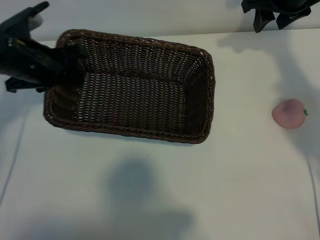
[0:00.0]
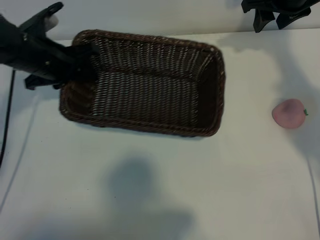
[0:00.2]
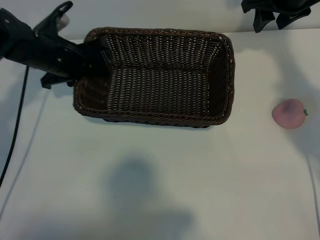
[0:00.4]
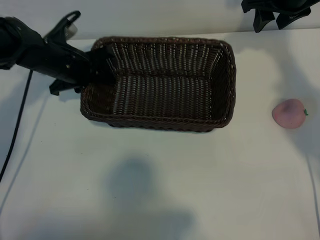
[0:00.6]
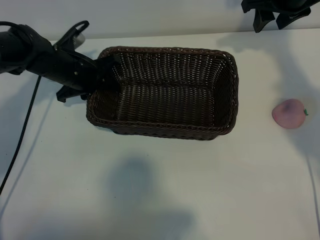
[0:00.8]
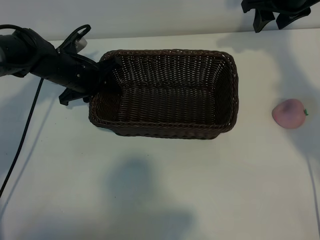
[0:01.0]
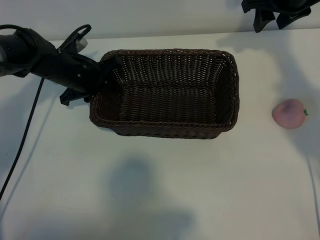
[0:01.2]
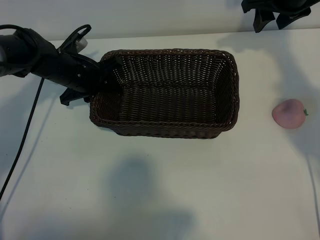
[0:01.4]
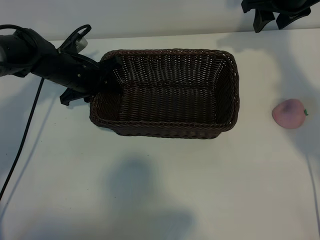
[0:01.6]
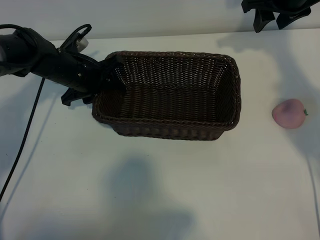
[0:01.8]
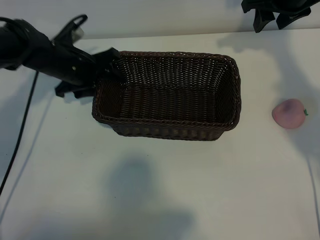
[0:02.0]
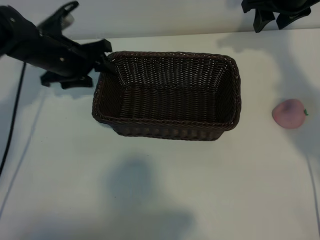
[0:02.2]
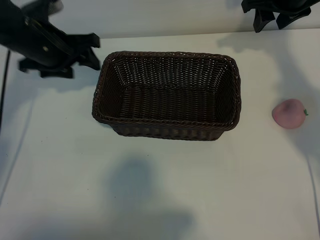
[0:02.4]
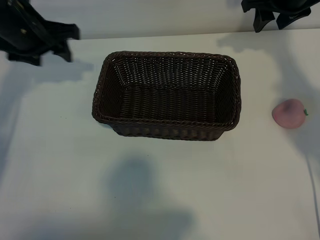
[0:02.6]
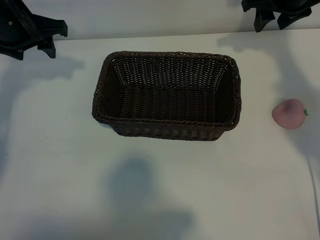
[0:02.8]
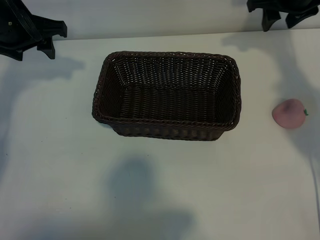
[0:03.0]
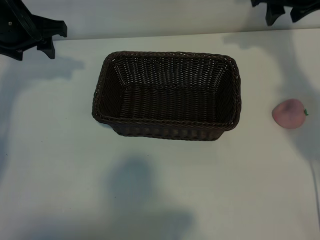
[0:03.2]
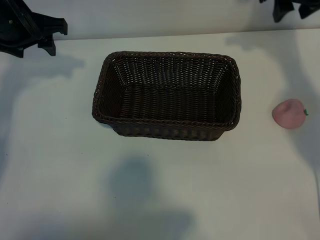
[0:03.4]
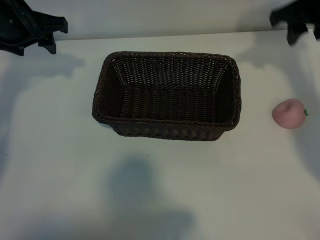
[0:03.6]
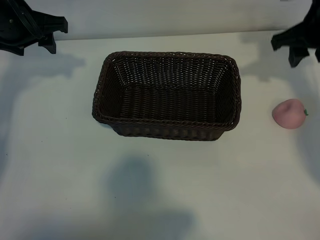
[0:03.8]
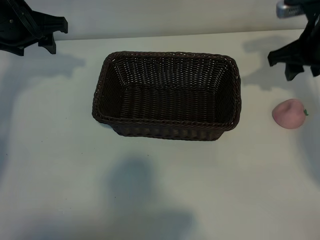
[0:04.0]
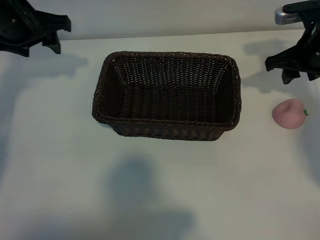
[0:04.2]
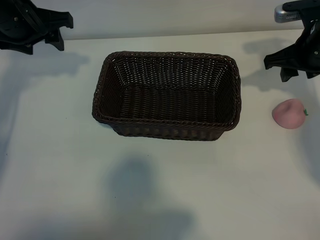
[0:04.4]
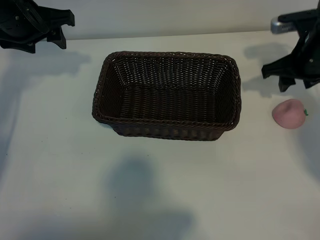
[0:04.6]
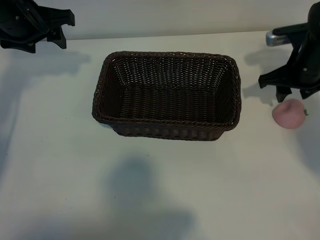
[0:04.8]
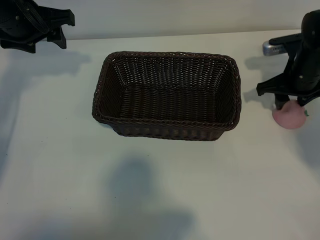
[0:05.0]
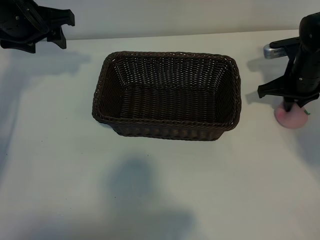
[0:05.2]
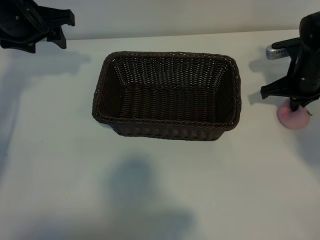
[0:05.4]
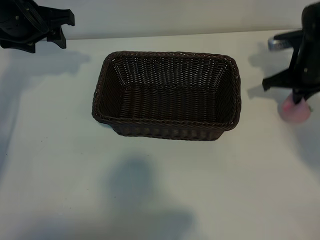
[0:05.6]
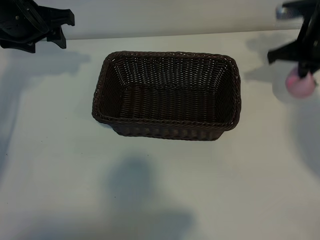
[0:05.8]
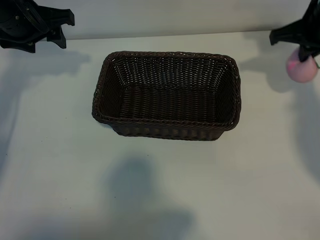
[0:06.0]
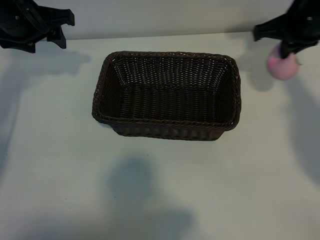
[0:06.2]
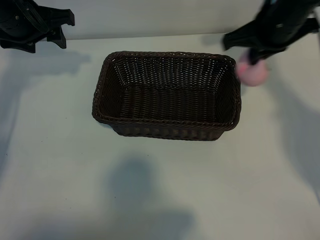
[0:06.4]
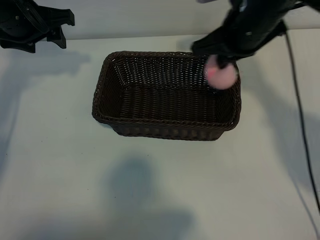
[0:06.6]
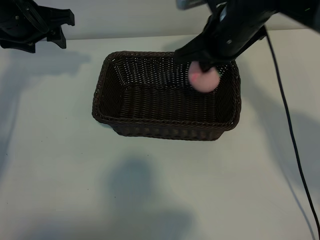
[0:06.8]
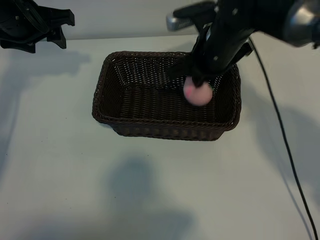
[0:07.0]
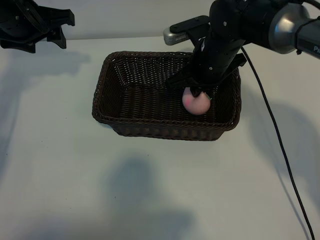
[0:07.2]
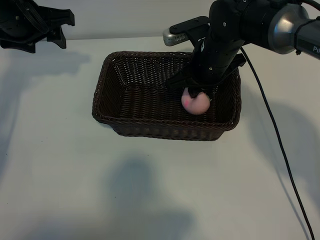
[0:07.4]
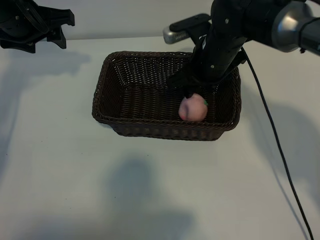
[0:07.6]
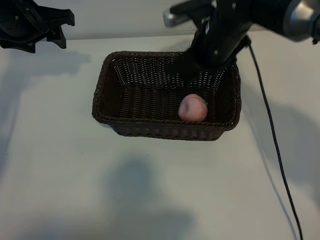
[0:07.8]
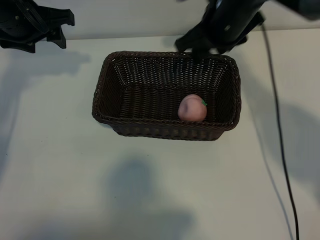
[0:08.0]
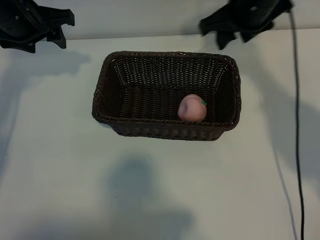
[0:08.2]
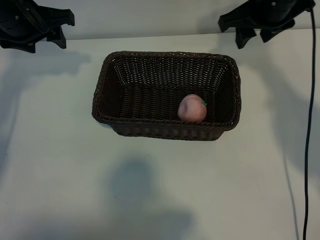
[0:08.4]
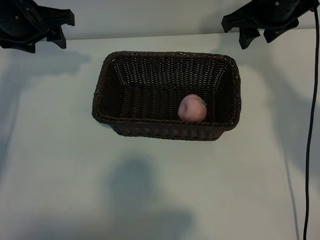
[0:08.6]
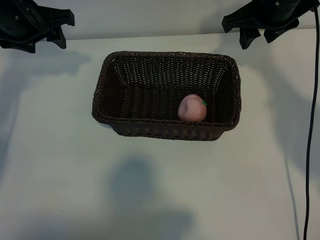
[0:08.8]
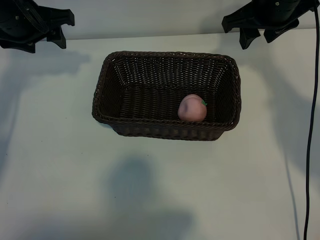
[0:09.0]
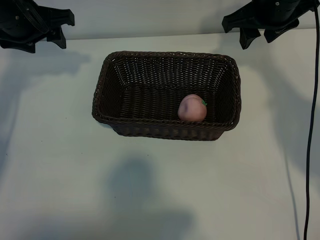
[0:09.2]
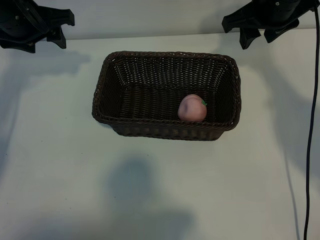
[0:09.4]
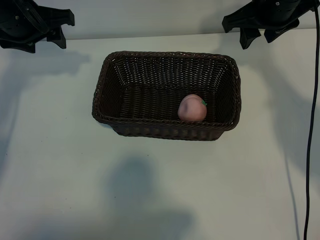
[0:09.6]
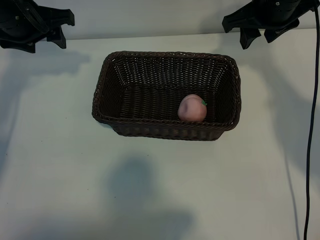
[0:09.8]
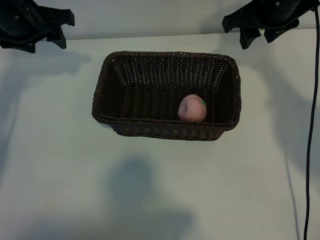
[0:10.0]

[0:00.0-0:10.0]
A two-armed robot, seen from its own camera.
Task of the whole recording: pick up the peach and put it into the basket.
Step, 0:00.0 to 0:02.0: Place the basket in the center of view with left gripper.
Step, 0:02.2 to 0:05.4: Grasp the peach with right gripper.
Step, 0:05.6 to 0:07.6: Place the peach in the basket with right gripper.
